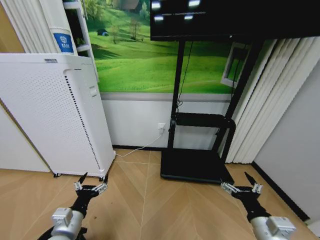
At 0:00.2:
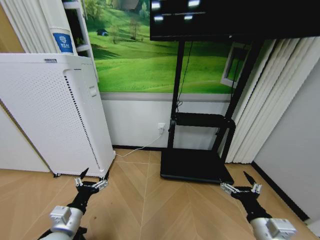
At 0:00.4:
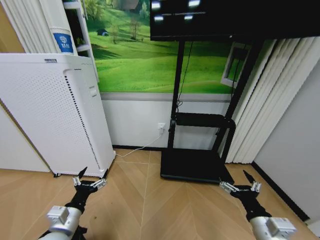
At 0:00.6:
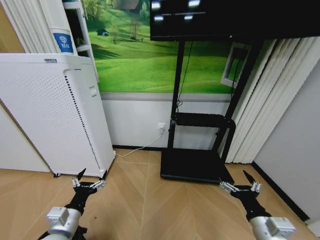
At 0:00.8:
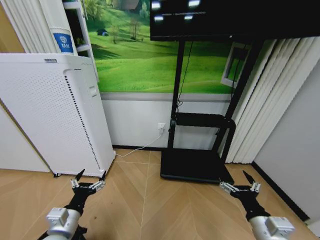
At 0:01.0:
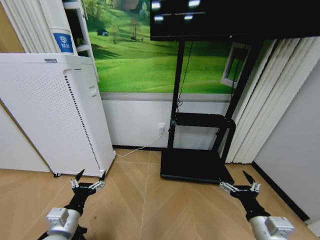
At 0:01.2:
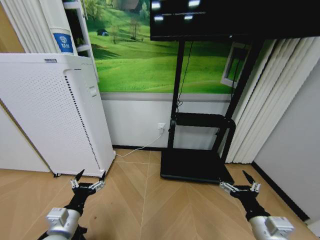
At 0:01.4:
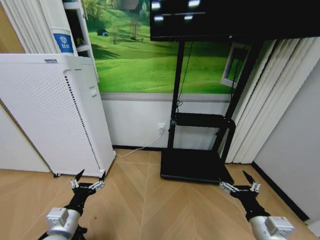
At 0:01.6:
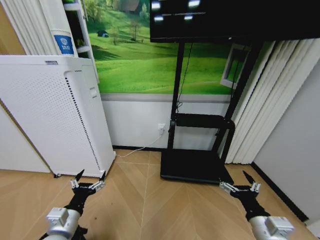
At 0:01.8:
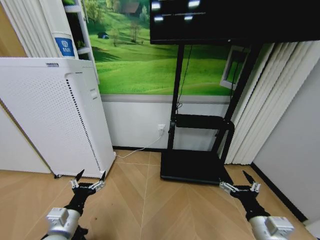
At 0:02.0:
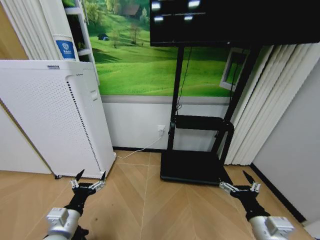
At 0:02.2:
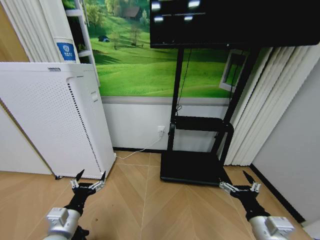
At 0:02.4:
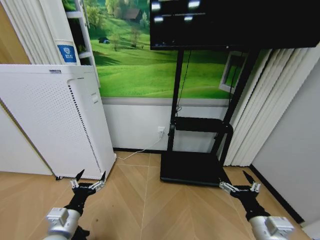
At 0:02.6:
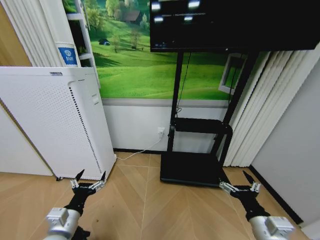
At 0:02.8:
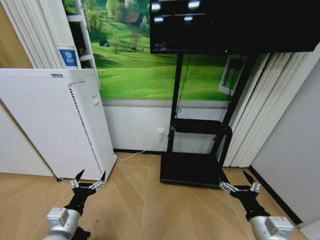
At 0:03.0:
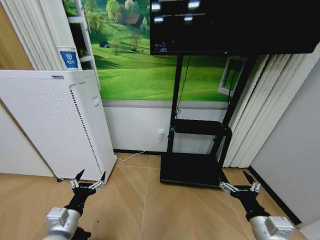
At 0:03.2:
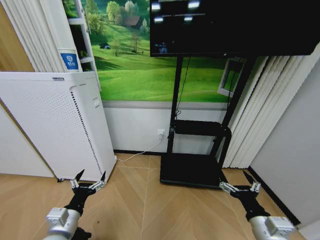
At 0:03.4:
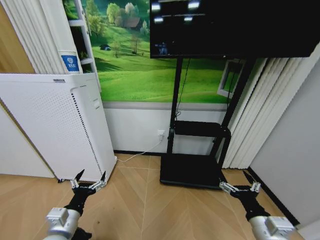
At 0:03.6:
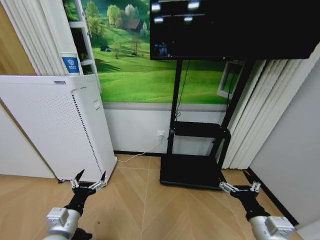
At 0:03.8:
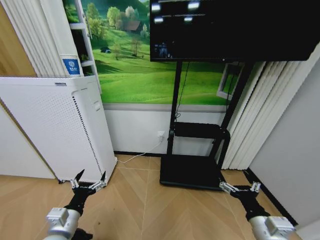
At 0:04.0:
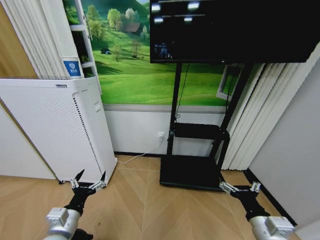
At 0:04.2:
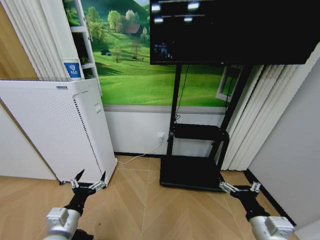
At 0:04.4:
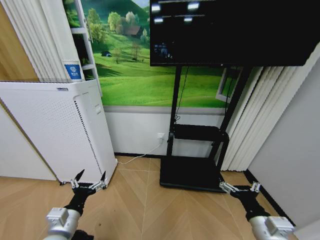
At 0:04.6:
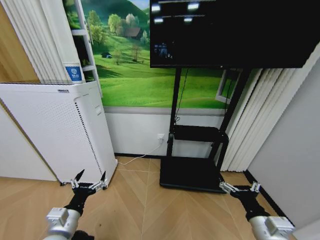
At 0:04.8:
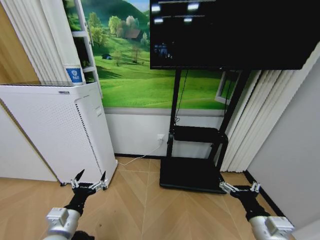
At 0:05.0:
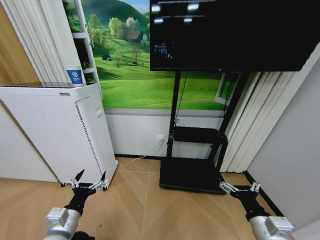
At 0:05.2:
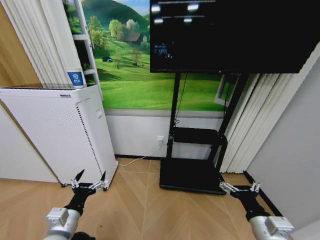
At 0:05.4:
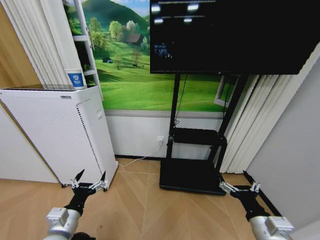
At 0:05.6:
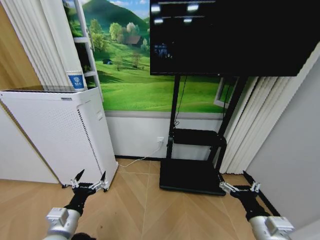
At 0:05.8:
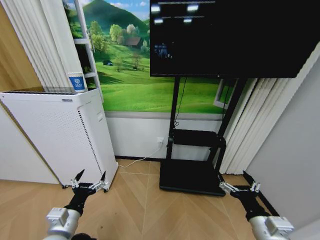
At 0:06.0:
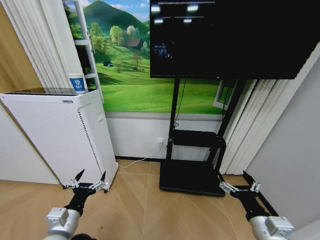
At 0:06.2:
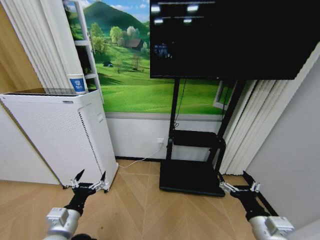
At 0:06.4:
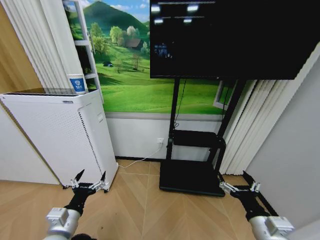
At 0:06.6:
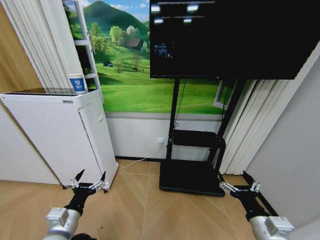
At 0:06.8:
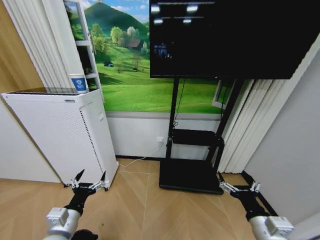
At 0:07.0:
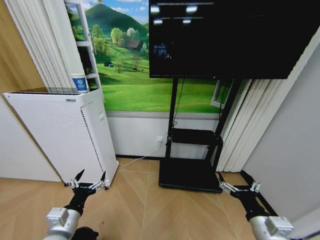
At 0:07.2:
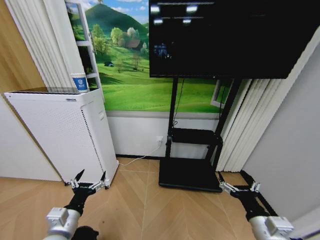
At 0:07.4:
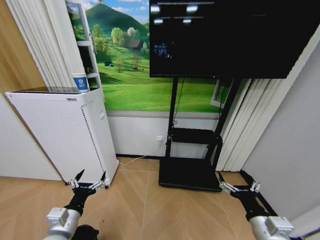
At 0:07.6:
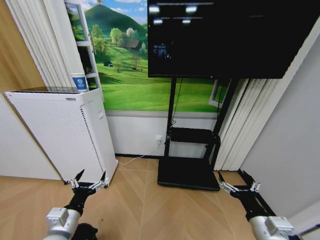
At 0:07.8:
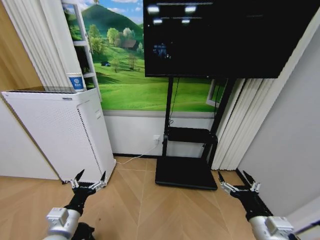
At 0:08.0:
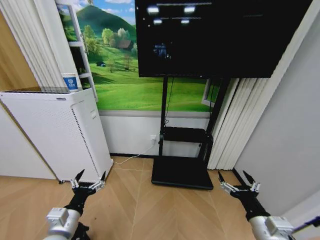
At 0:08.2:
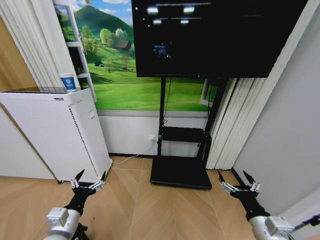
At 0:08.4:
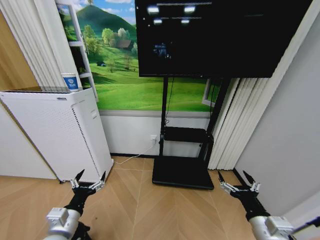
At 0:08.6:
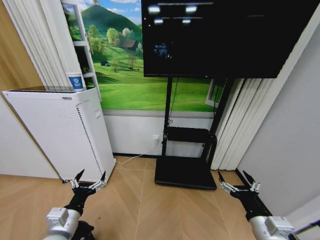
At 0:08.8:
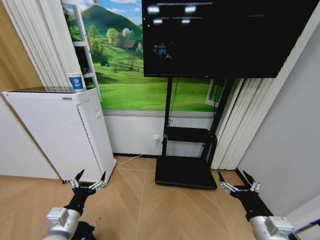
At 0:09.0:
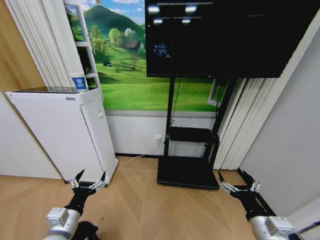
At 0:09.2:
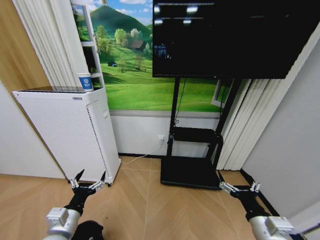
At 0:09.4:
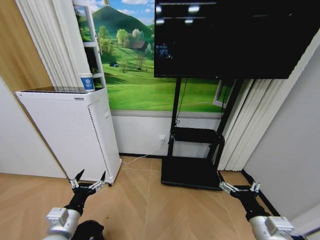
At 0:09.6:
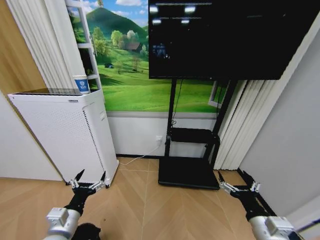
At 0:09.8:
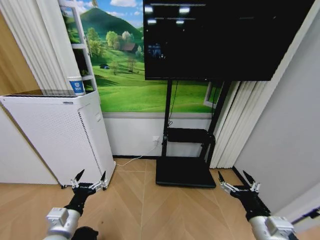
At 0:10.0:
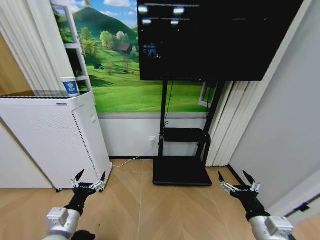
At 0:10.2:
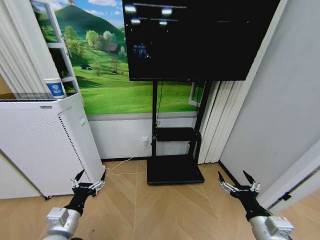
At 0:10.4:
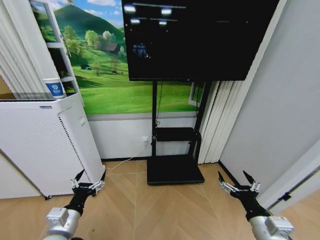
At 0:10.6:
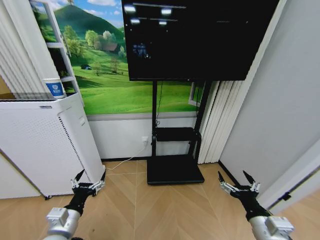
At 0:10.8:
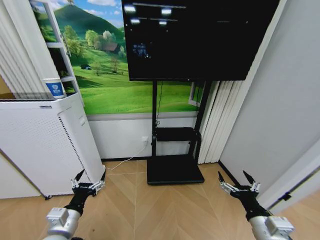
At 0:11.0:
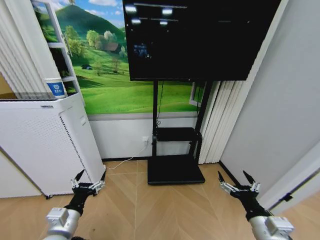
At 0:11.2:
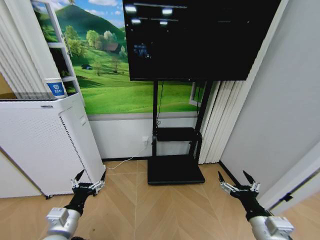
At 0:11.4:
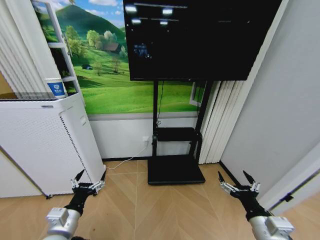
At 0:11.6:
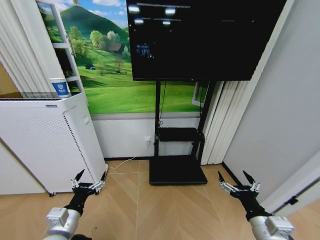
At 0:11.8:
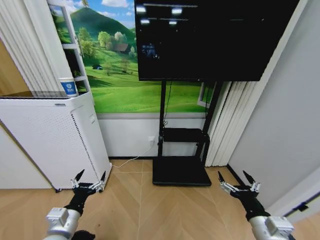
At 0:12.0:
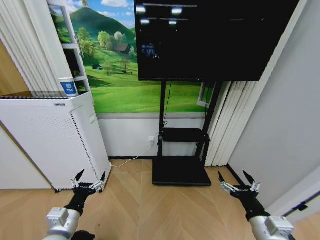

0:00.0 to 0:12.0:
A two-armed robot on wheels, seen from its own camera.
Task of the whole recording: Pick up the trash bin and place the garbage on the floor into it.
0:00.0 to 0:09.0: Both grippers stay put.

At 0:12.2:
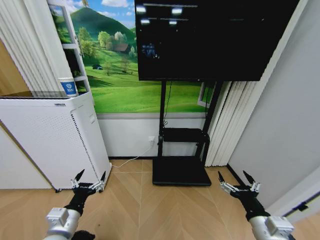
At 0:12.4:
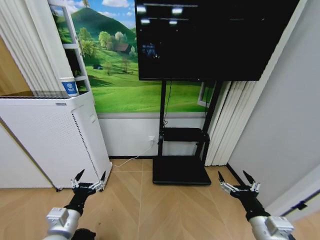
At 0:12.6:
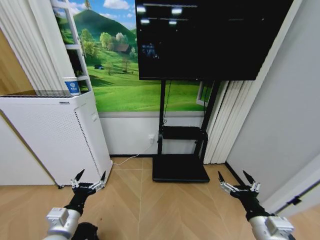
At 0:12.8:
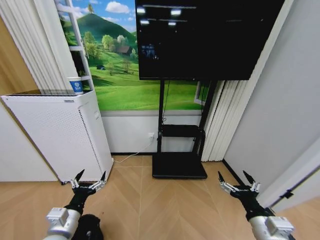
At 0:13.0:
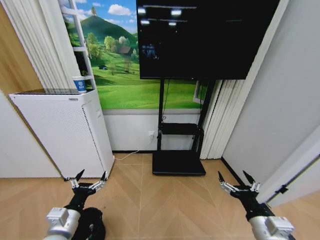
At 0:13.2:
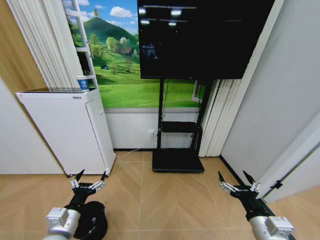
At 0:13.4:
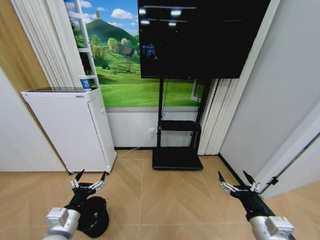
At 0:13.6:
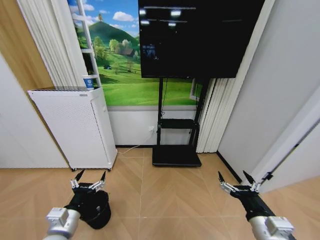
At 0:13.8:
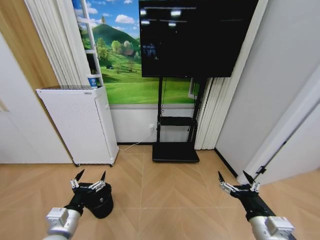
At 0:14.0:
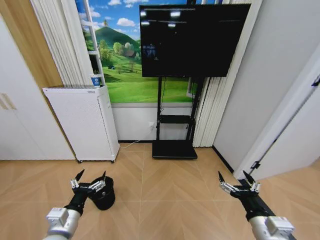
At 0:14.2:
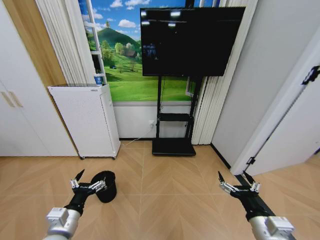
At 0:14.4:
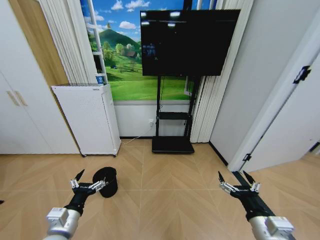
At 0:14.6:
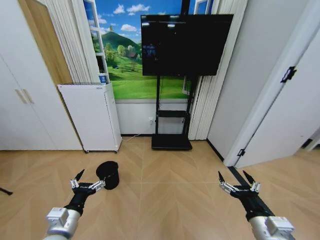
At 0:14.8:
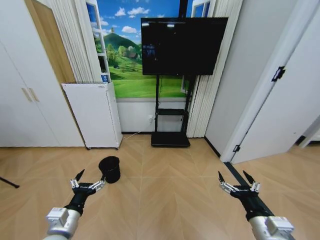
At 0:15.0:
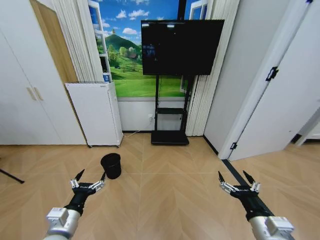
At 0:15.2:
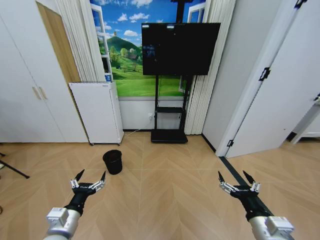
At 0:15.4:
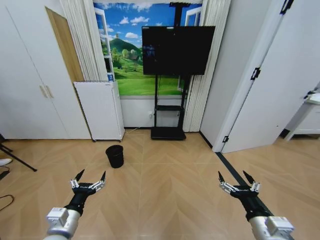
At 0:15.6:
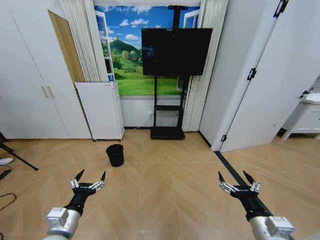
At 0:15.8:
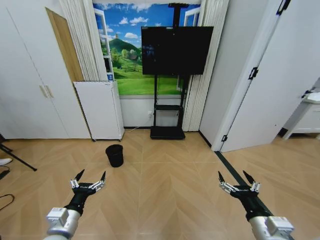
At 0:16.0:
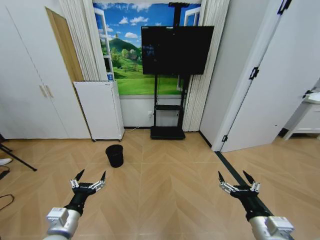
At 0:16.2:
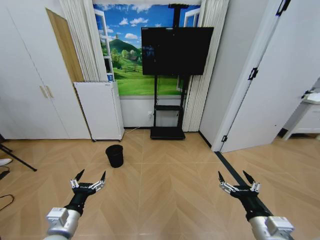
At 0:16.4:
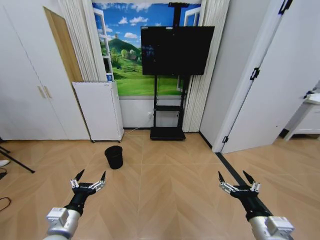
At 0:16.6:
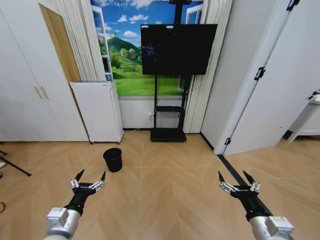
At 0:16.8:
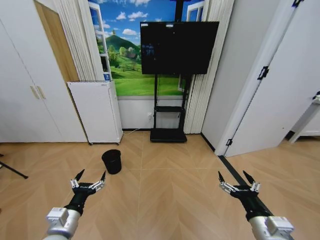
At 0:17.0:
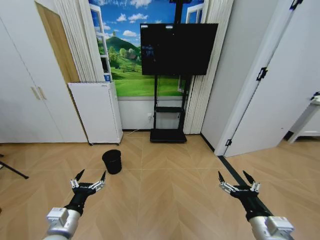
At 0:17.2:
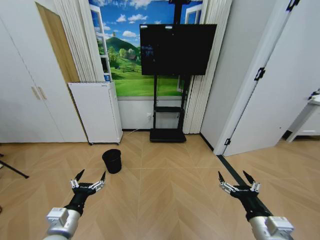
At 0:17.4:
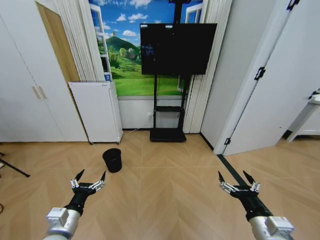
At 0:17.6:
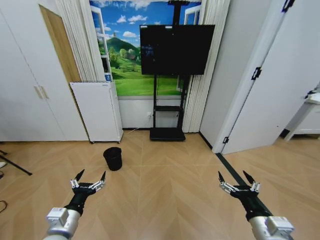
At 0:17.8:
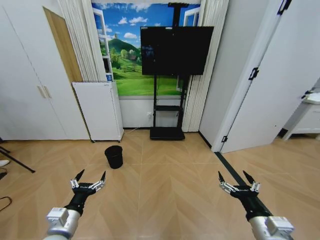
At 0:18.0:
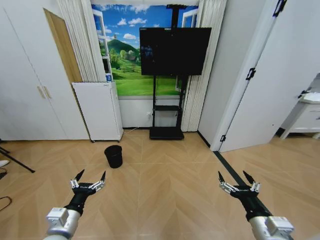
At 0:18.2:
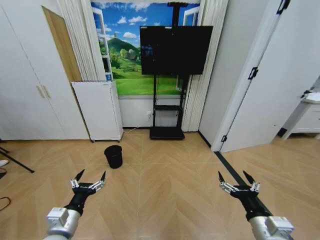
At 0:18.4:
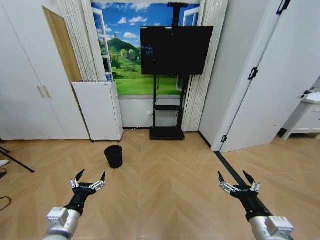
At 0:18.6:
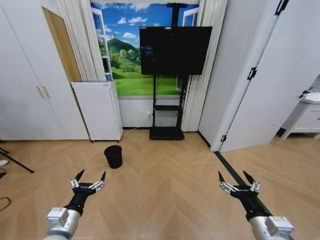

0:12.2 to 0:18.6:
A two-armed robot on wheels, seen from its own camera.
Task of the whole recording: Pick up the trash bin and place the garbage on the floor into it.
0:15.4 to 0:18.6: Both grippers stay about where they are.
